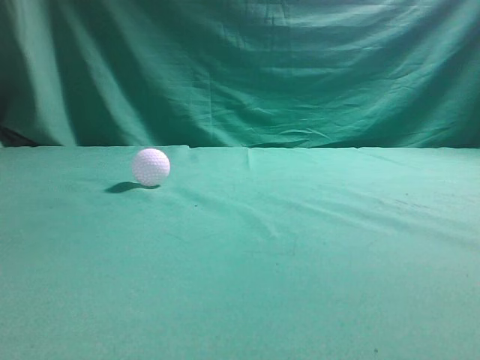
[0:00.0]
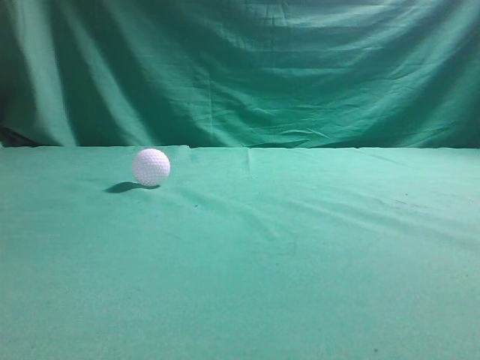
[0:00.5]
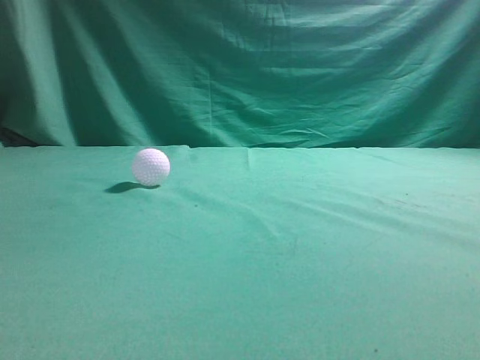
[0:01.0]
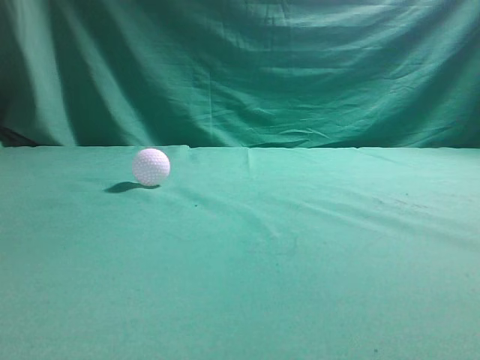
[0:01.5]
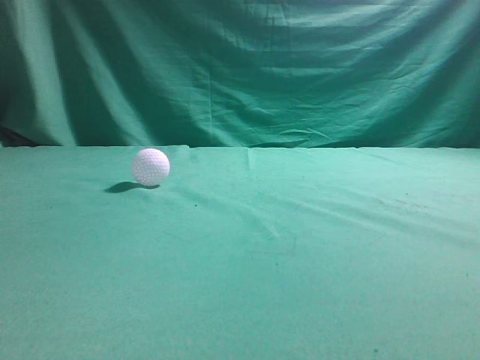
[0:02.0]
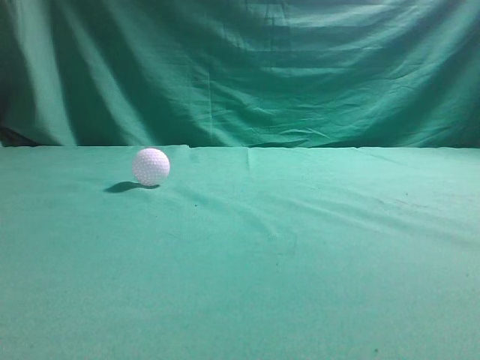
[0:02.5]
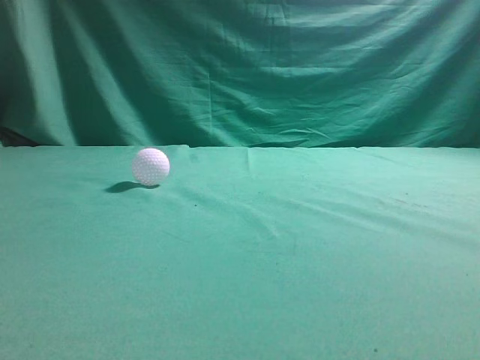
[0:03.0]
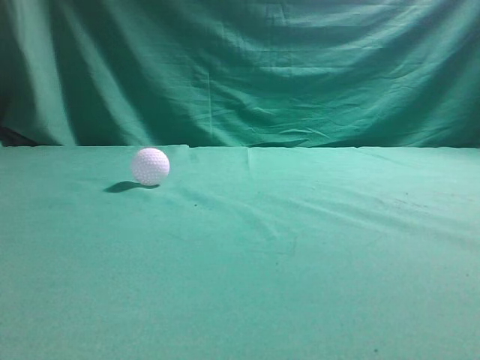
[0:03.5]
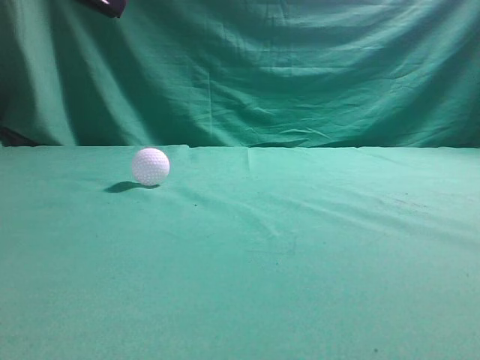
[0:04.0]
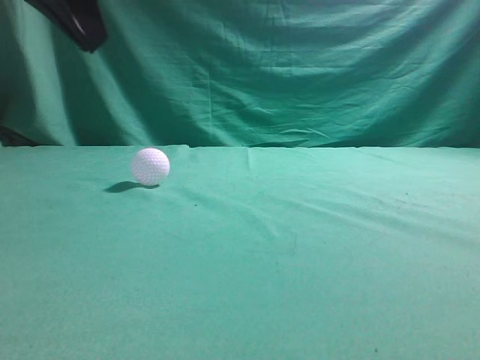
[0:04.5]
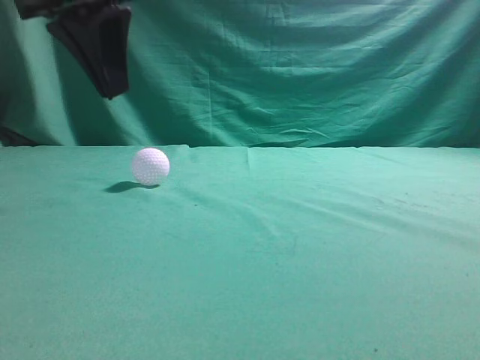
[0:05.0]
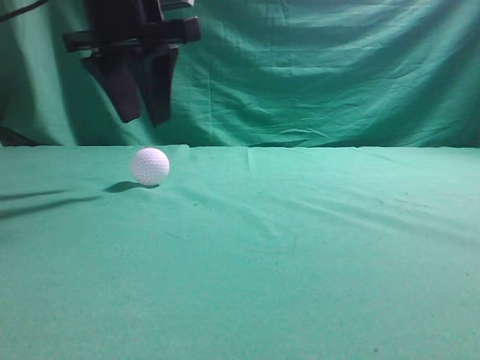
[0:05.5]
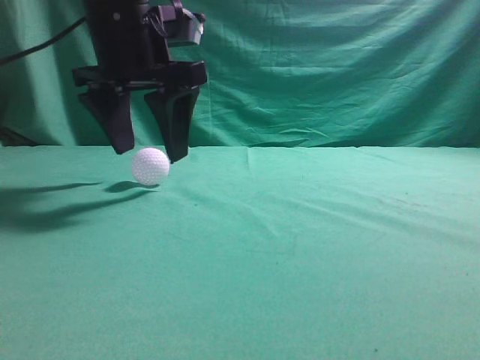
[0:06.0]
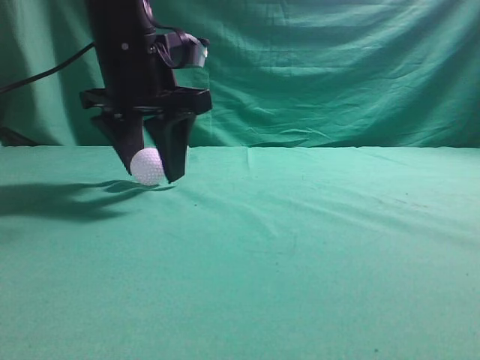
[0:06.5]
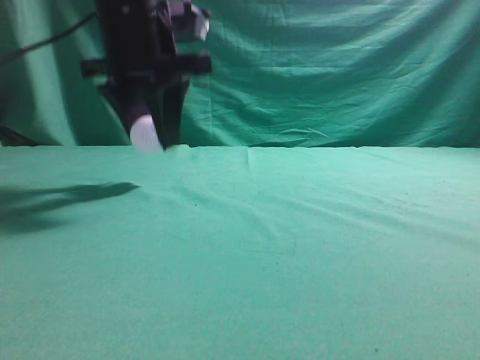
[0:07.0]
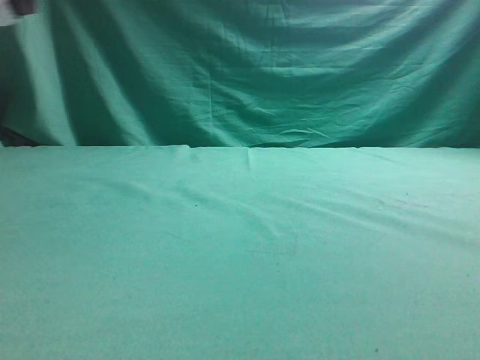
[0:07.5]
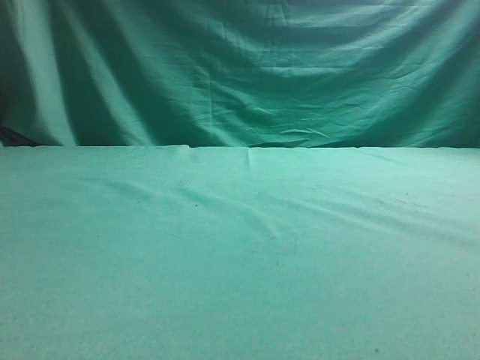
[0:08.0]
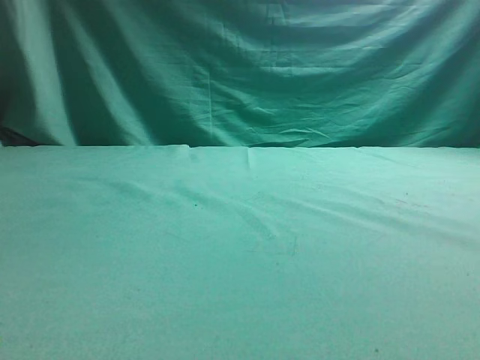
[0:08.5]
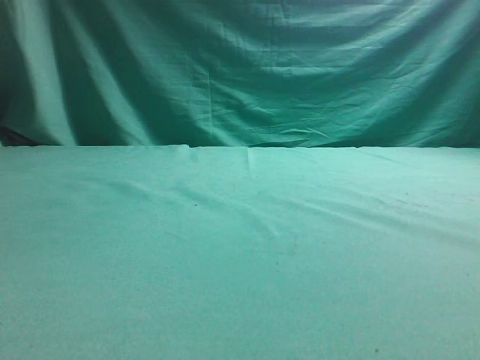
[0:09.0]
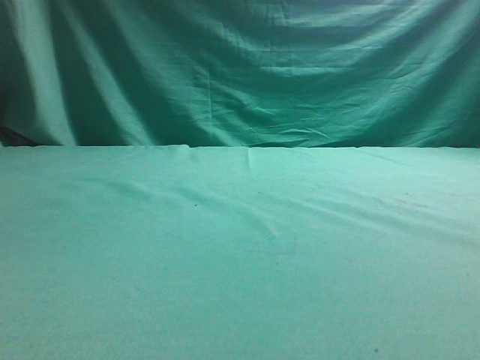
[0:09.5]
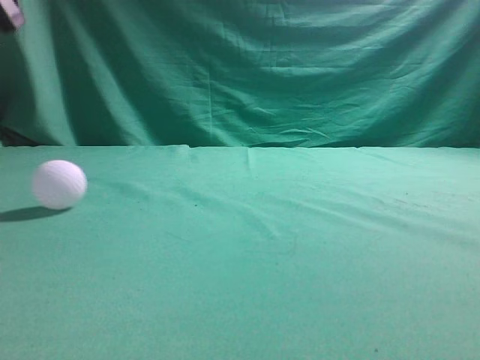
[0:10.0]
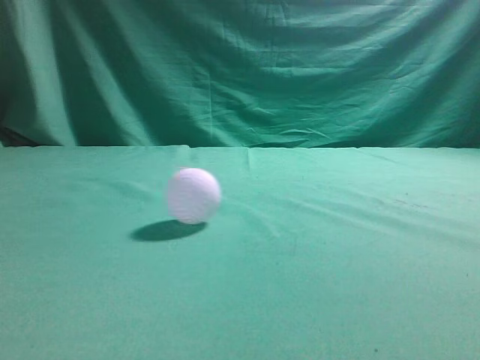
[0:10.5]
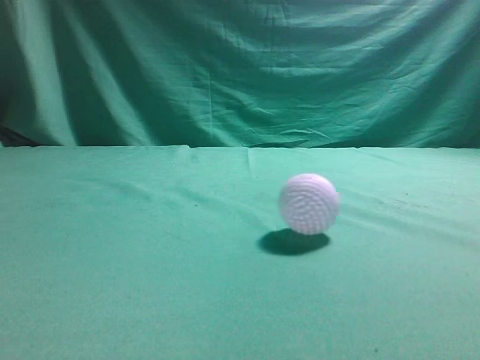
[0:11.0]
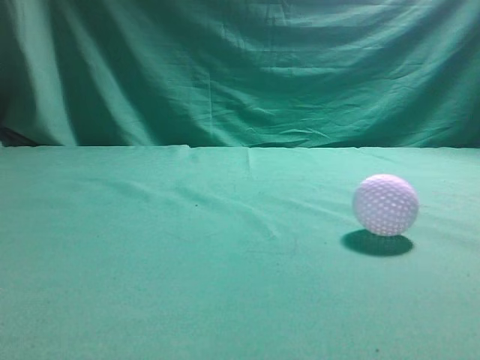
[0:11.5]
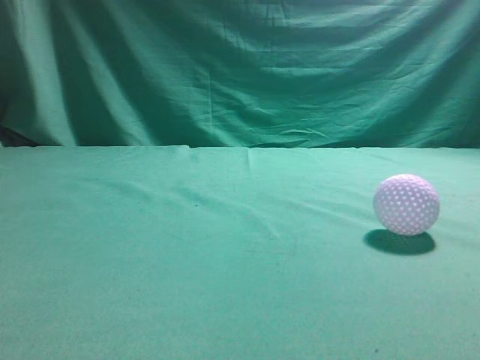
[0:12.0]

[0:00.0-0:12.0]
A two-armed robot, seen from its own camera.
Task of the whole recording: pick up the ball and place it on the plate, then pick up the ball from the plate and put it in the center of the table.
Step, 0:00.0 to 0:07.0: Grab the spherical object with your left arm.
0:02.0 to 0:04.0: The left gripper travels forward and to the right by about 25 cm.
0:04.0 to 0:06.0: The left gripper is displaced forward, to the right and downward by approximately 15 cm, and opens.
0:06.0 to 0:08.0: The left gripper moves to the left, some 20 cm, and closes its fingers.
0:08.0 to 0:10.0: The left gripper moves forward, some 5 cm, reaches some 5 cm downward, then returns, and closes.
0:10.0 to 0:12.0: The right gripper is displaced upward by roughly 10 cm, while the left gripper travels backward by approximately 30 cm.

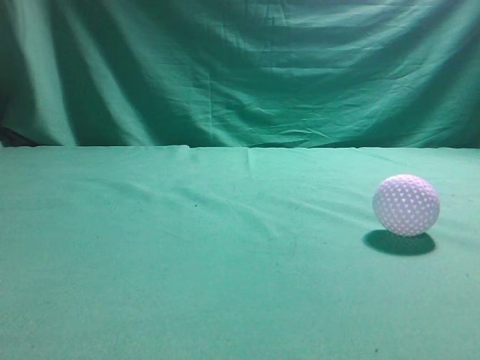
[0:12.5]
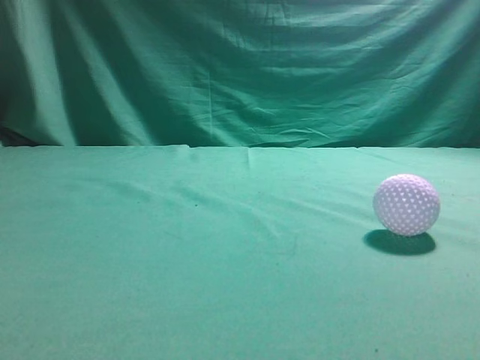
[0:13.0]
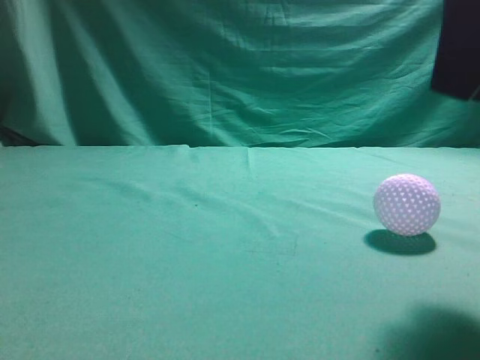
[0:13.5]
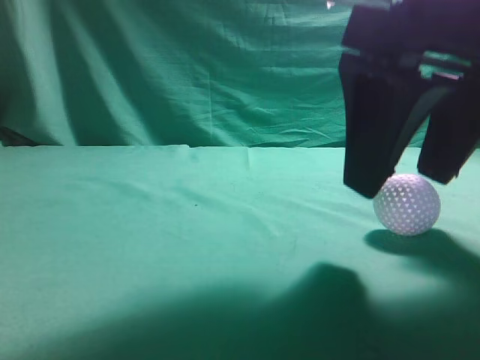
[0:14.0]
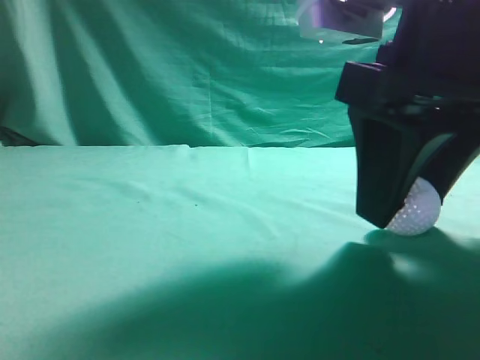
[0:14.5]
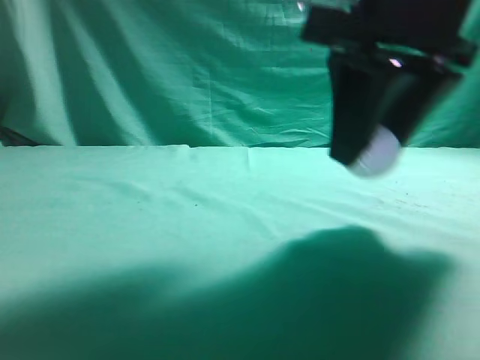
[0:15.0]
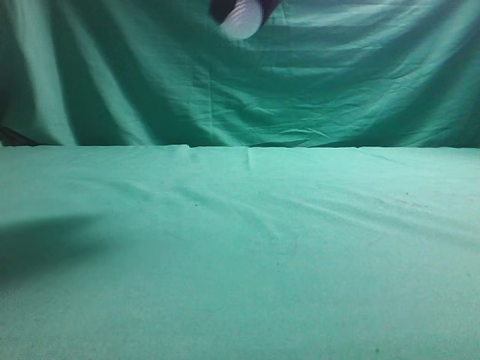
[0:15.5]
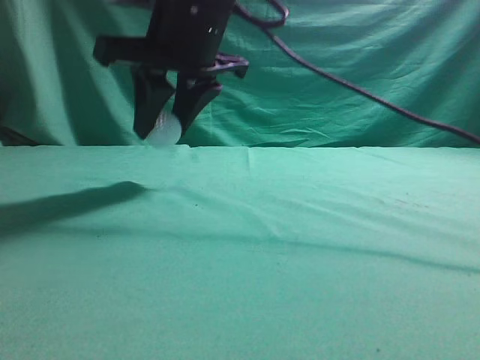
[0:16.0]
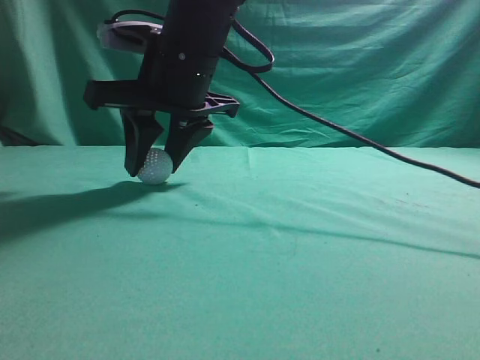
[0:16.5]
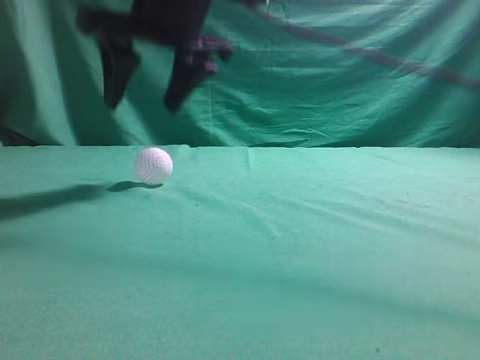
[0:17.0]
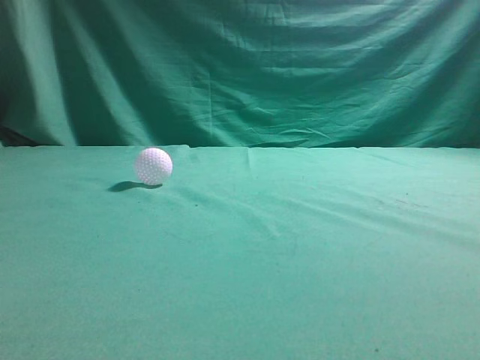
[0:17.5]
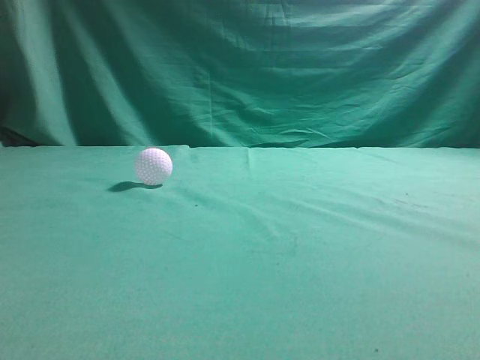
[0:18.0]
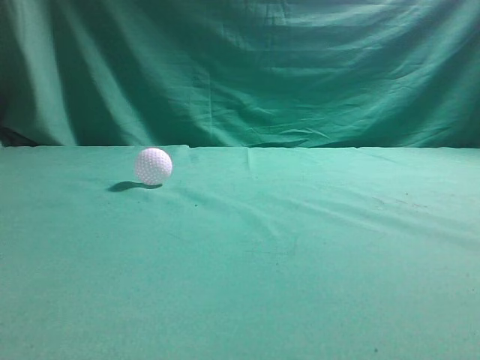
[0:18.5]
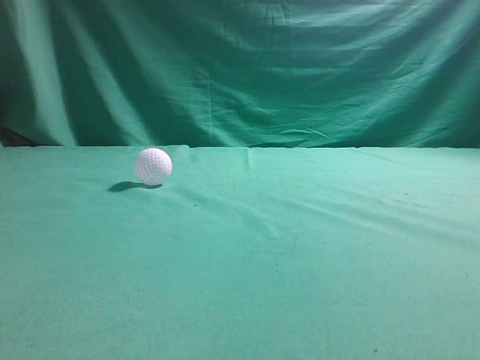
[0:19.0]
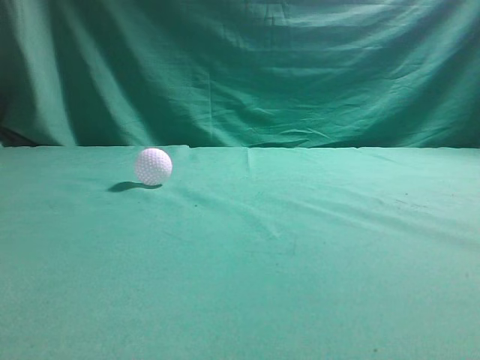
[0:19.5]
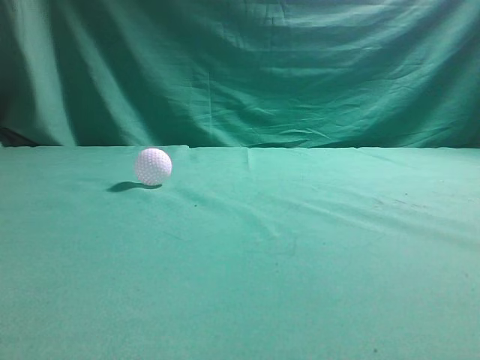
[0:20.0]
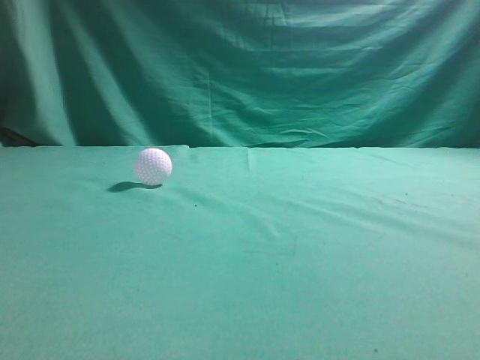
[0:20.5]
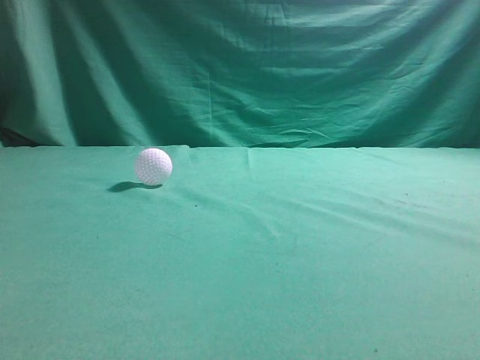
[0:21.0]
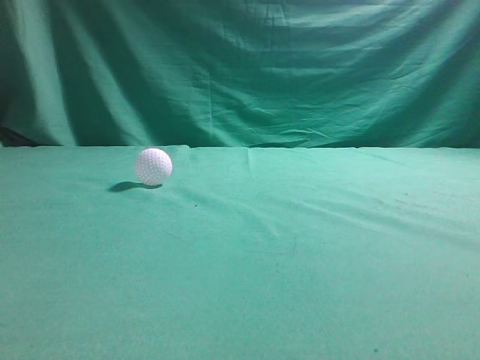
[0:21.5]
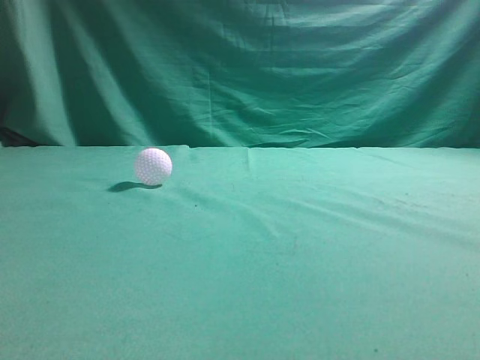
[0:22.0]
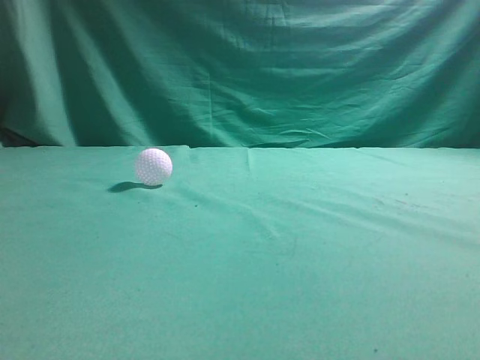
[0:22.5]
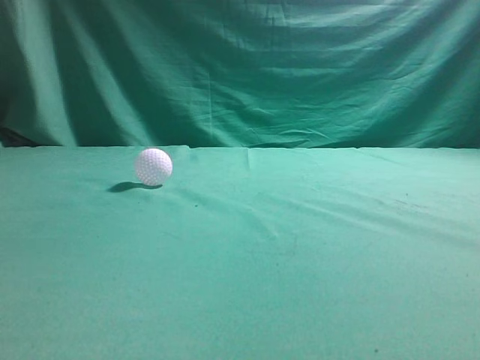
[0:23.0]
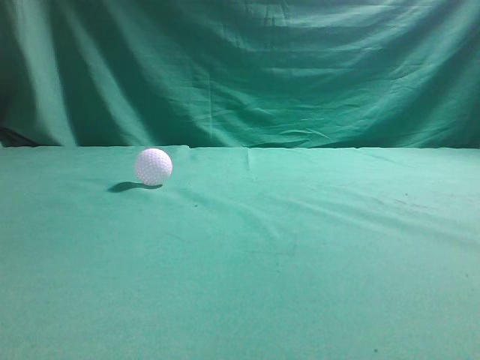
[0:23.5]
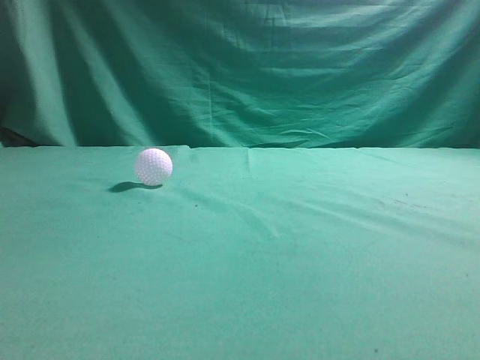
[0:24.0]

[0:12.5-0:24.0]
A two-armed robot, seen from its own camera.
Task of the whole recording: pick up the ball and place it on the plate, then pick up the ball from the plate and put it in the center of the table.
Step, 0:12.5 to 0:14.5: Grab the rolling spherical object.
Step, 0:15.0 to 0:16.5: Put the picked-up object on the table.
0:12.5 to 0:14.5: The right gripper heads forward, to the left and downward, covering some 25 cm, and opens its fingers.
0:14.5 to 0:16.5: The right gripper travels to the left and forward by some 20 cm.
0:16.5 to 0:18.5: The right gripper heads upward, backward and to the right, covering roughly 40 cm, and closes its fingers.
